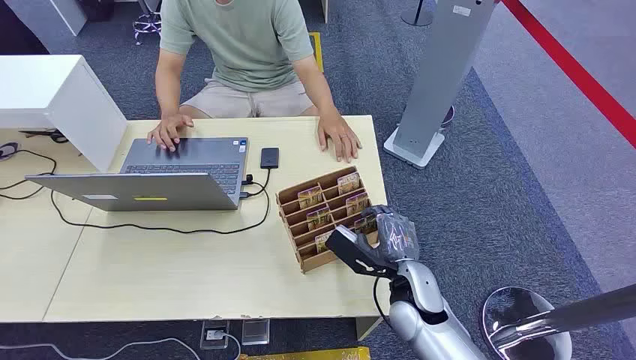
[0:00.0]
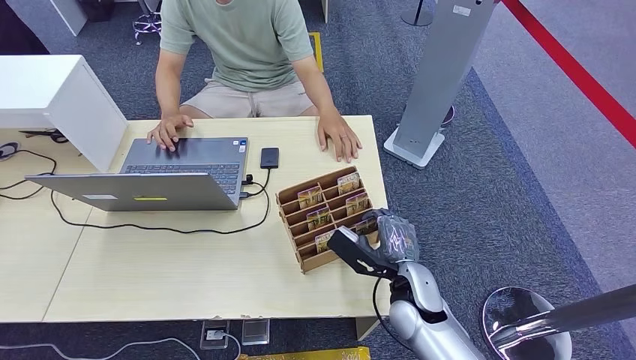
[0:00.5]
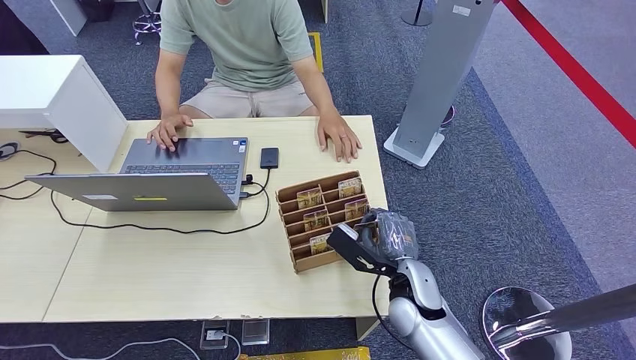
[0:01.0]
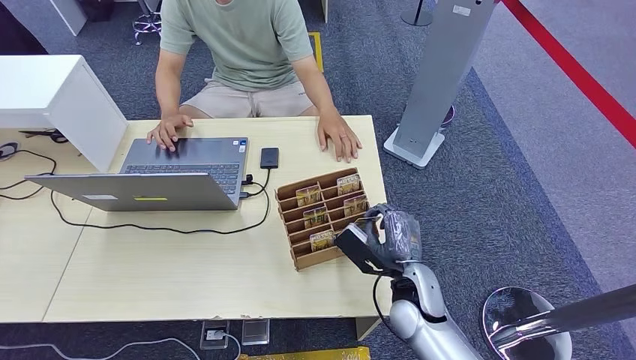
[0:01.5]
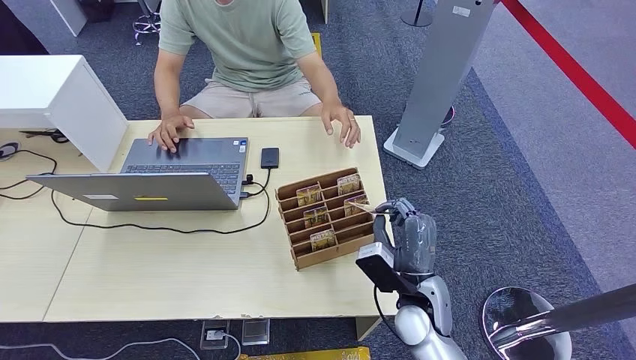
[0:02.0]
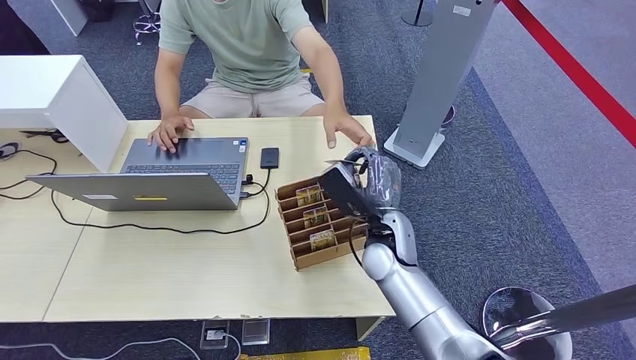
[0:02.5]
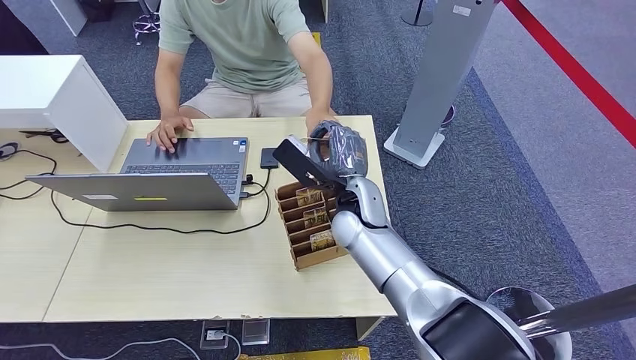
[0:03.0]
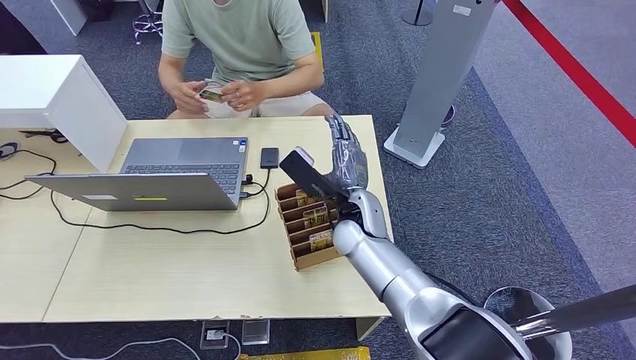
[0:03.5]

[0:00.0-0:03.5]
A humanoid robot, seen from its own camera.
Step, 0:00.0 to 0:01.5: Pick up the room card from the card holder.
Step, 0:02.5 to 0:03.5: Hand the room card to the target.
0:02.0 to 0:03.5: The right hand goes some 15 cm forward, to the left and upward.
